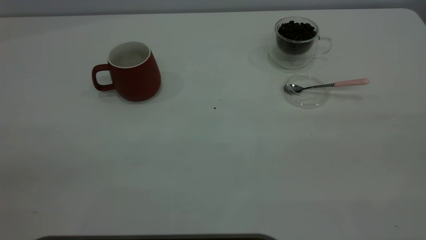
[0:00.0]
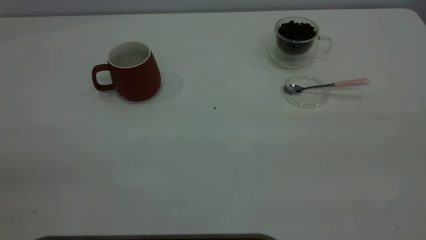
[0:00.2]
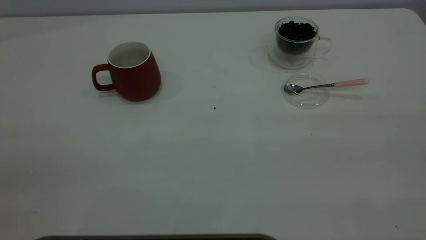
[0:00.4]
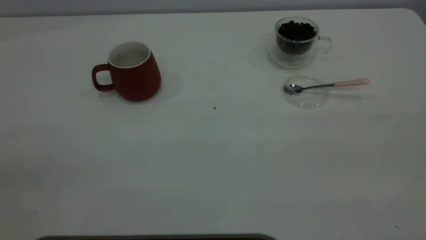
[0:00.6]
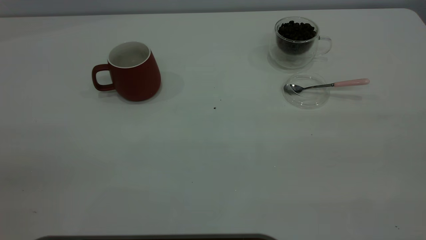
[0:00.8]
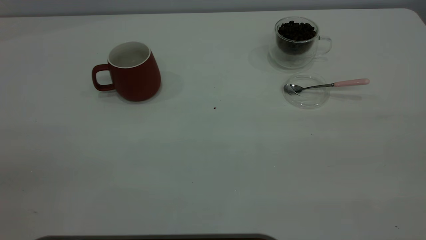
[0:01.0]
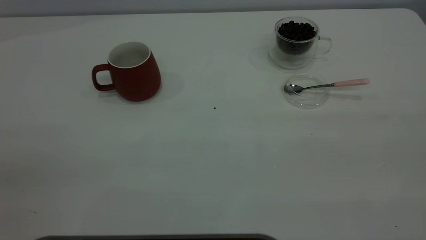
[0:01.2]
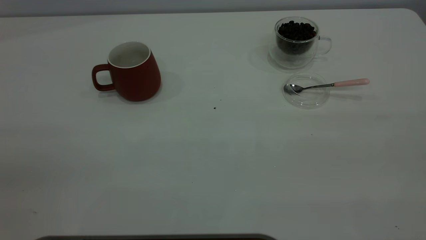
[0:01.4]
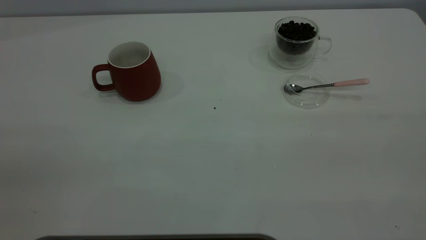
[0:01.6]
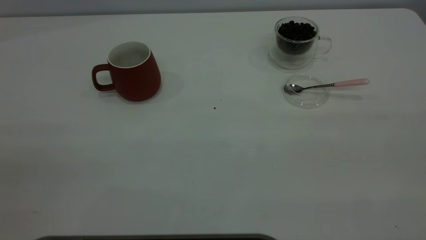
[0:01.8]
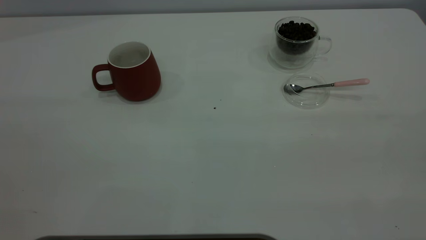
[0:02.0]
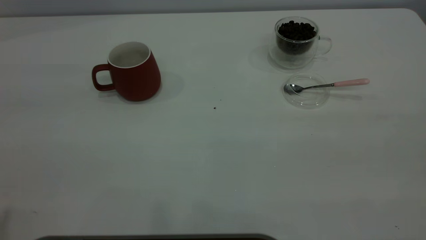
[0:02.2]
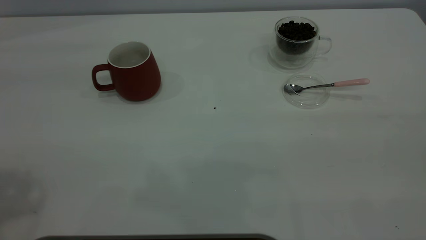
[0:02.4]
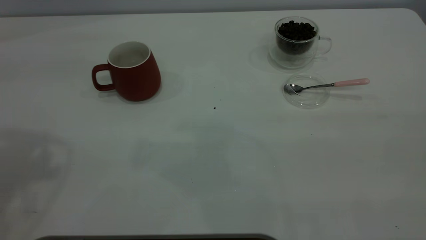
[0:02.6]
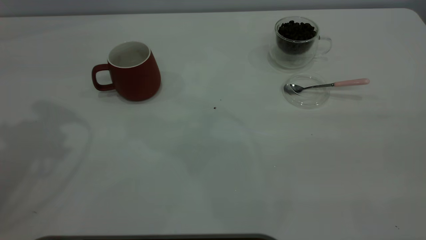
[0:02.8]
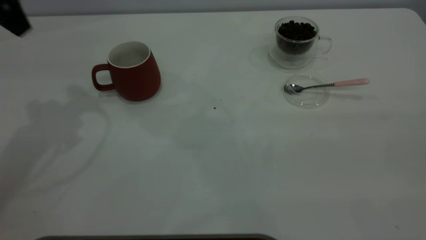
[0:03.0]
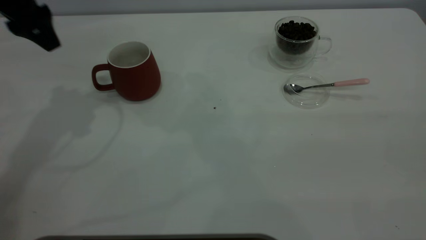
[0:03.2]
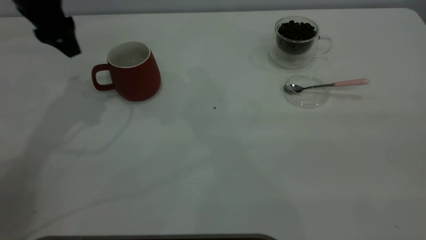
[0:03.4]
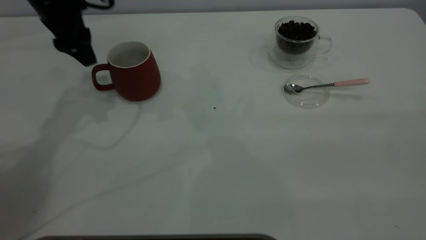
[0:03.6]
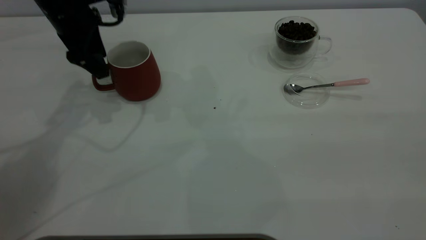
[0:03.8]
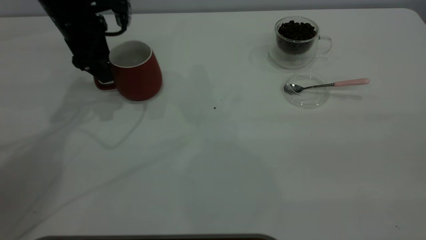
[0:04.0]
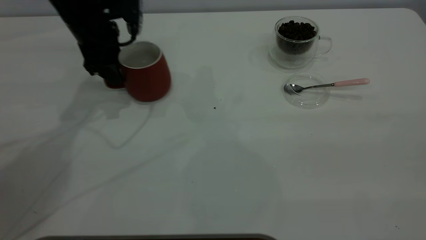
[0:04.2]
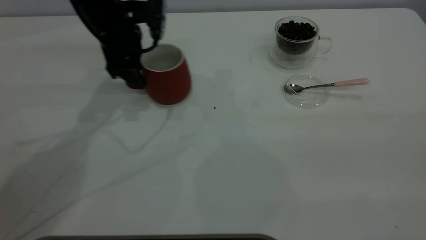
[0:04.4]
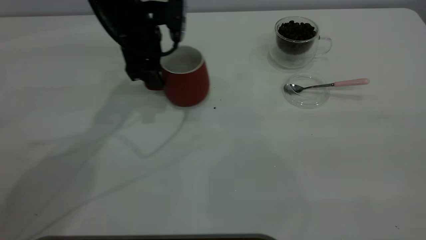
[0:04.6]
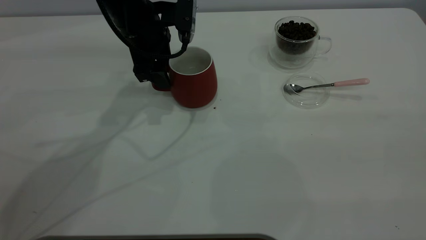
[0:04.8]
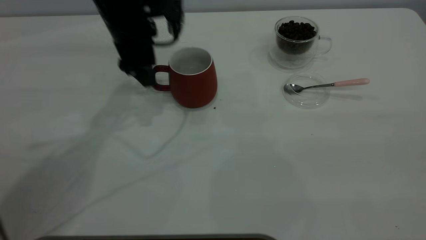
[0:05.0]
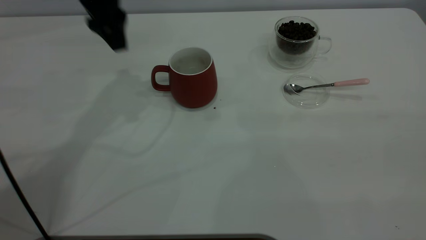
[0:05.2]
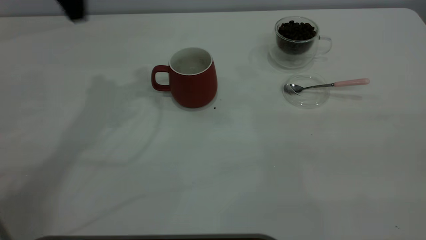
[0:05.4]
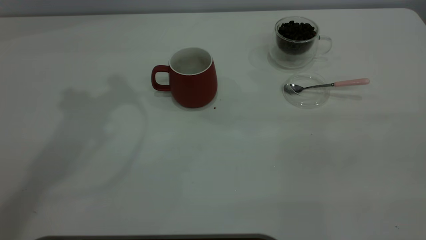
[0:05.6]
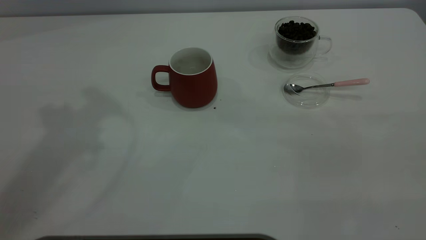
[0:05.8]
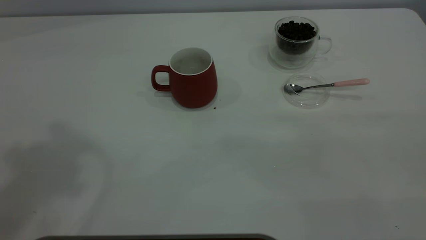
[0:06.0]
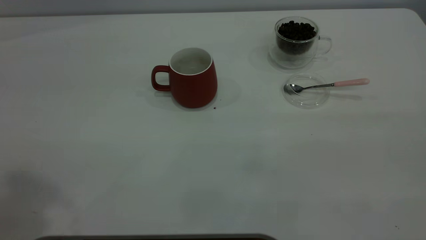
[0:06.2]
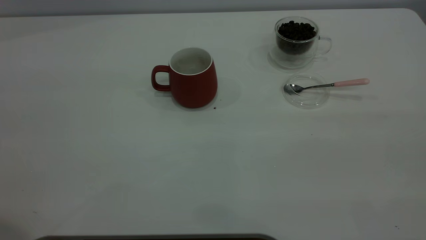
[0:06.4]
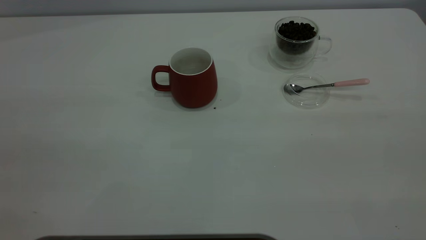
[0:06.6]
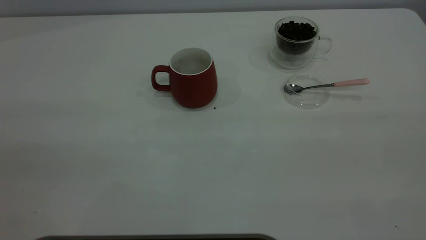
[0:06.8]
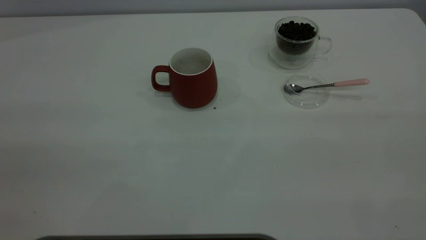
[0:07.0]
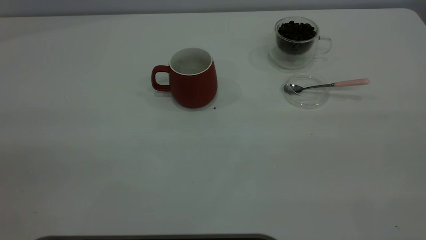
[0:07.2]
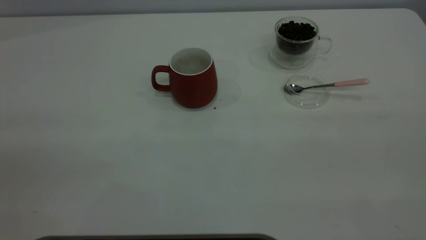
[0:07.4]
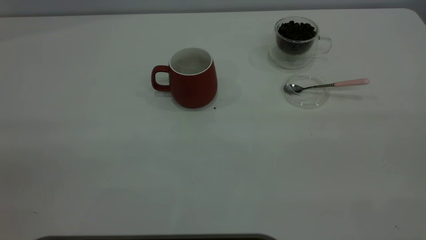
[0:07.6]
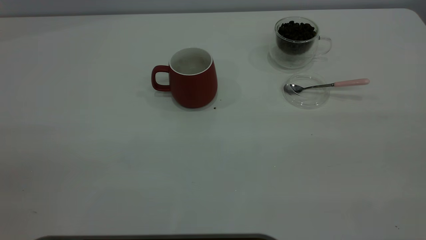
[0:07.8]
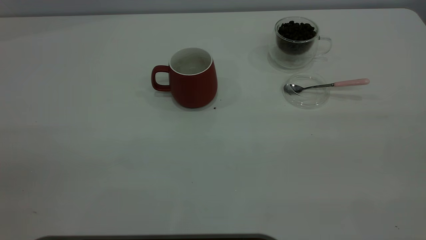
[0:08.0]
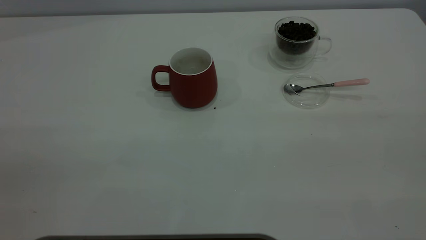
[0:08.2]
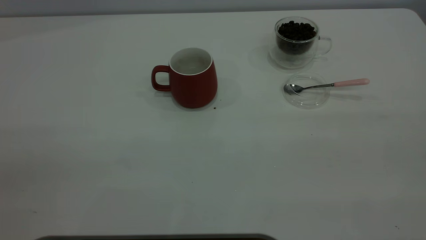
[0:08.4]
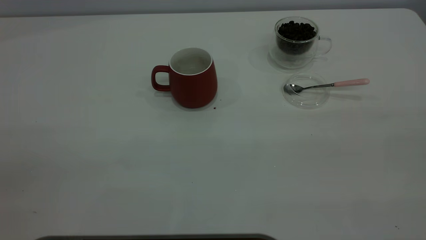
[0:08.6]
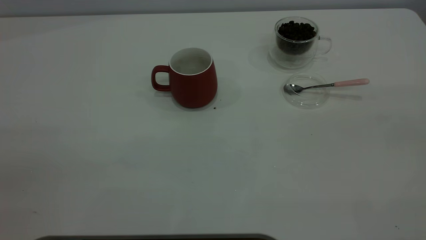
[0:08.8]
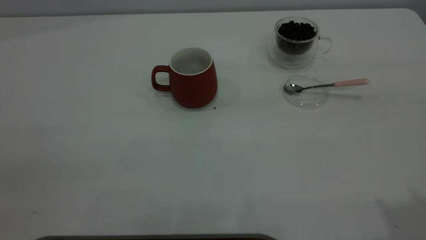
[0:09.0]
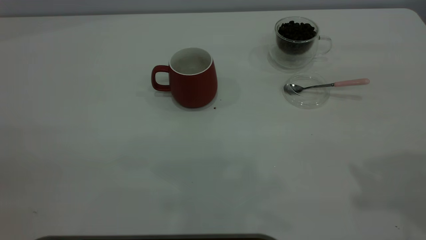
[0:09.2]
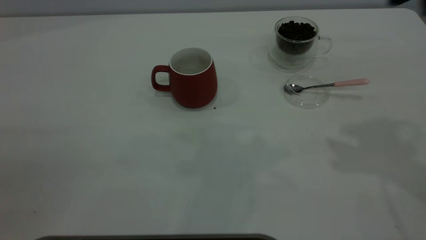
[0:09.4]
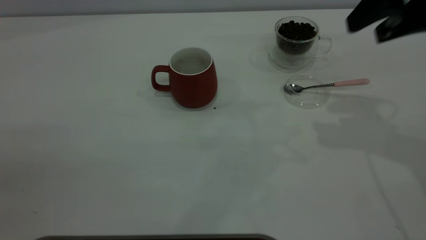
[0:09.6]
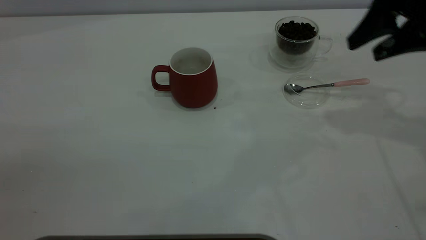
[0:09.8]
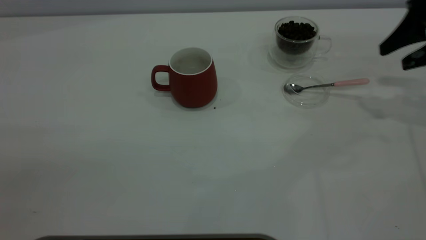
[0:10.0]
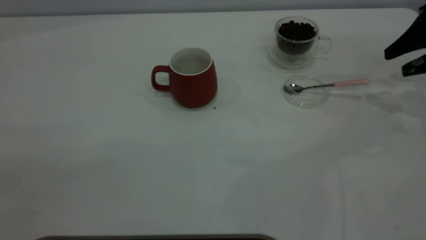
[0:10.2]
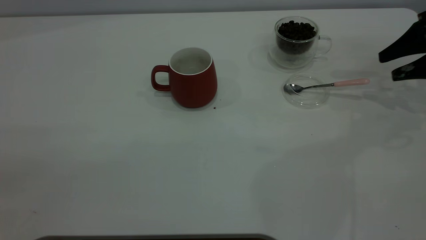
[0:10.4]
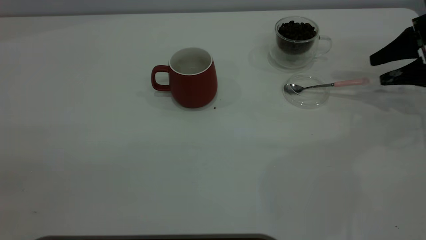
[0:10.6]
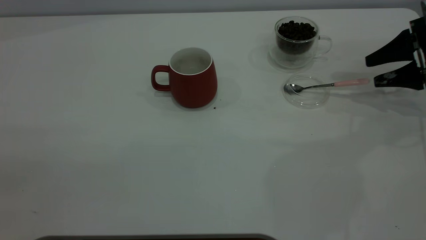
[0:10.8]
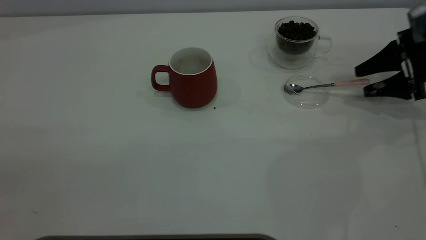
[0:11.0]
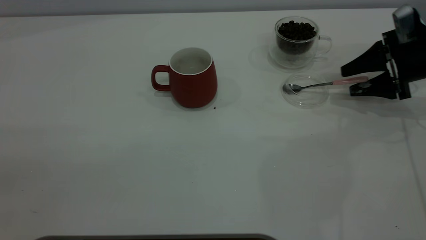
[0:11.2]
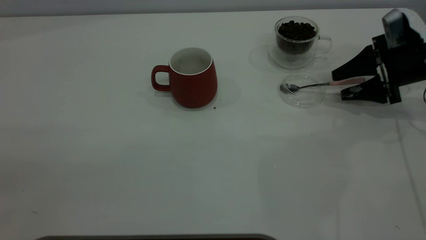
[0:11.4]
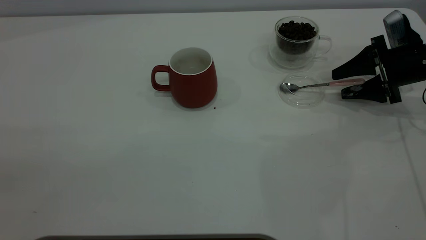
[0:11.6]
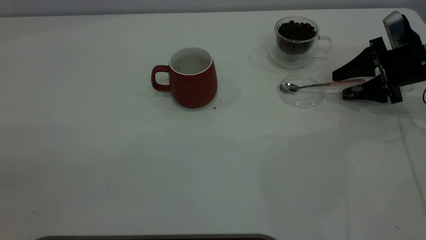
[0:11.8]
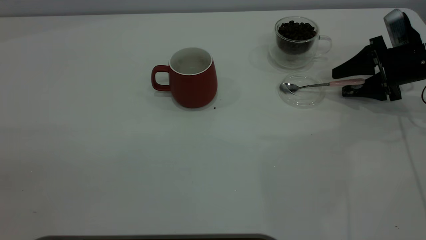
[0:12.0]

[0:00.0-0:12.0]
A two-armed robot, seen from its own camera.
Task of the whole recording: the left gripper place the red cup in the center of the table, the right gripper take the pink spoon from the cup lid and scoop out the coffee beans from the coffee cup and put them into the red cup, the right gripper put the spoon back into the cup lid.
Step, 0:00.0 to 0:05.0: Move the cup to the center of view.
0:00.0 to 0:01.6: Both grippers stay put.
0:01.6 to 0:03.0: The left gripper shifts some 35 cm forward.
0:03.0 to 0:04.4: The left gripper goes approximately 20 cm downward, to the right and forward.
0:04.4 to 0:06.0: The left gripper shifts roughly 40 cm upward and backward.
0:09.0 to 0:10.4: The right gripper is displaced forward, downward and to the right by approximately 40 cm.
0:10.4 to 0:12.0: The right gripper heads downward and to the left, covering about 10 cm.

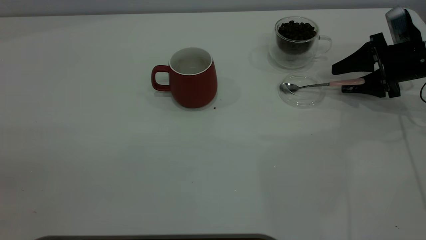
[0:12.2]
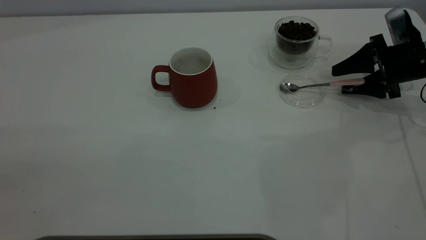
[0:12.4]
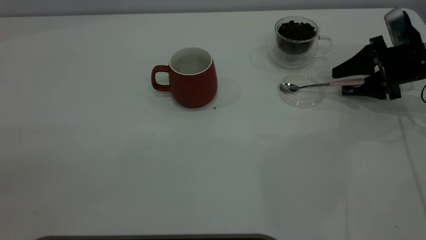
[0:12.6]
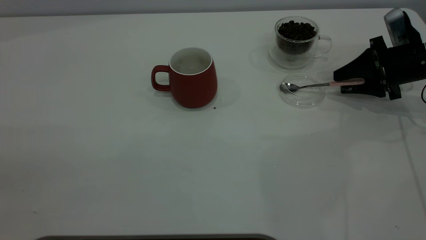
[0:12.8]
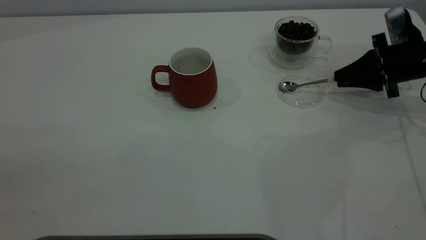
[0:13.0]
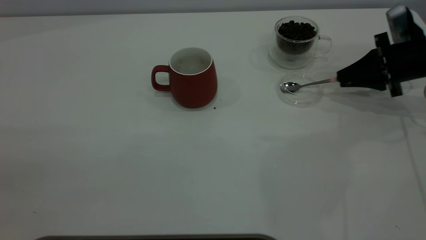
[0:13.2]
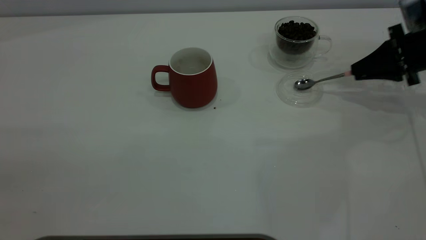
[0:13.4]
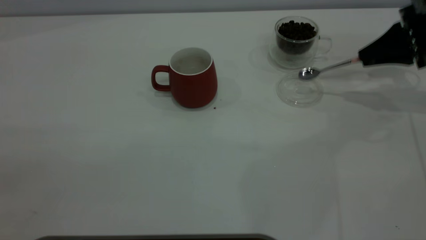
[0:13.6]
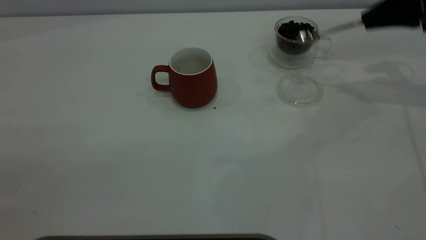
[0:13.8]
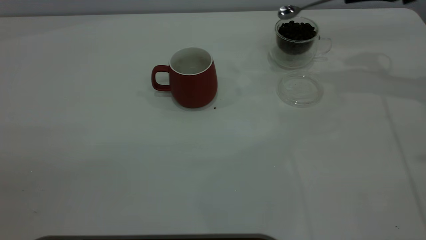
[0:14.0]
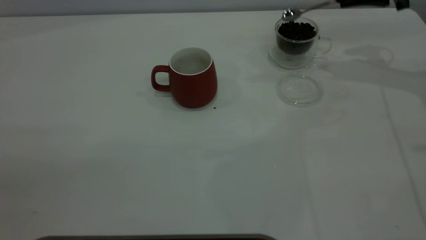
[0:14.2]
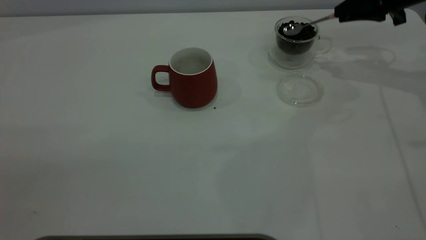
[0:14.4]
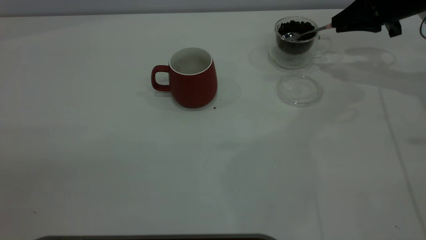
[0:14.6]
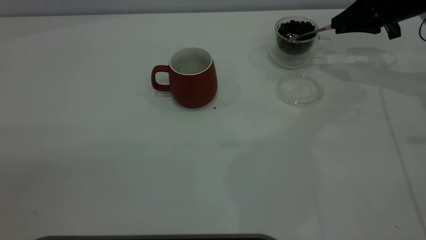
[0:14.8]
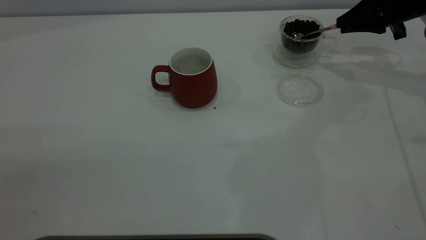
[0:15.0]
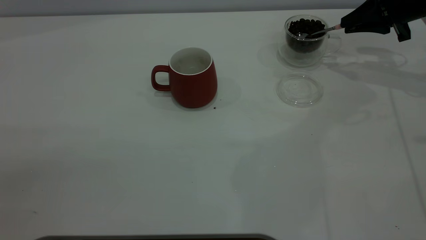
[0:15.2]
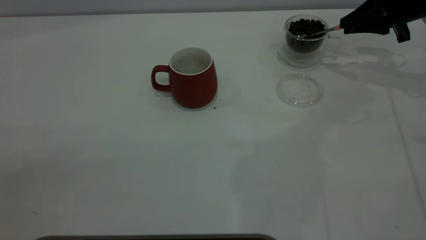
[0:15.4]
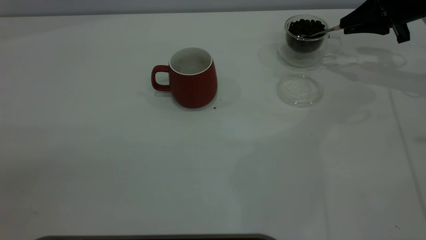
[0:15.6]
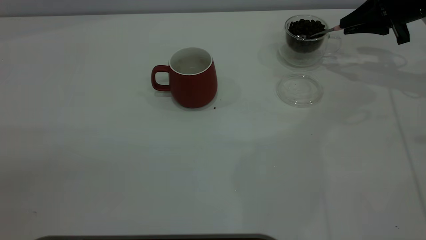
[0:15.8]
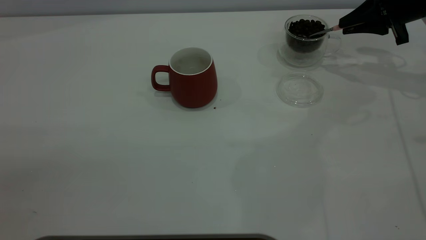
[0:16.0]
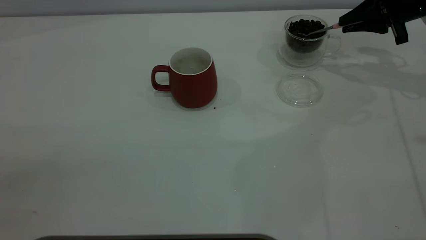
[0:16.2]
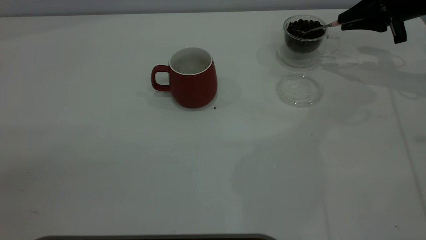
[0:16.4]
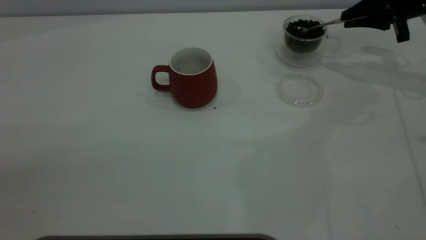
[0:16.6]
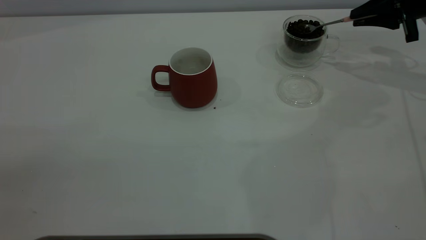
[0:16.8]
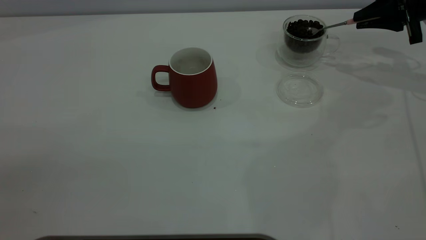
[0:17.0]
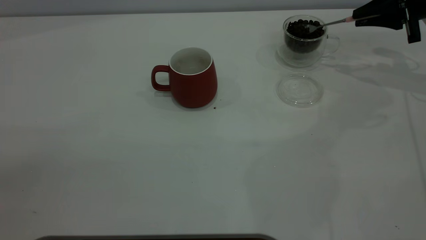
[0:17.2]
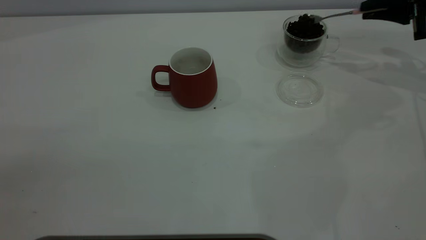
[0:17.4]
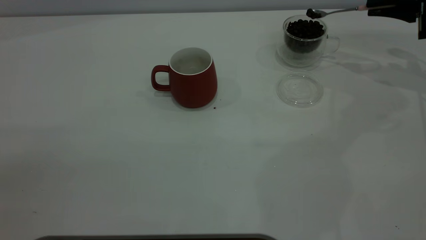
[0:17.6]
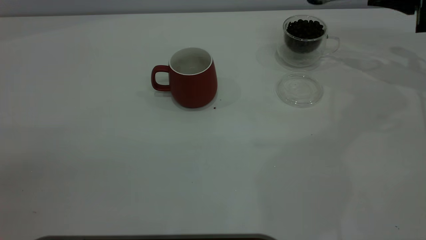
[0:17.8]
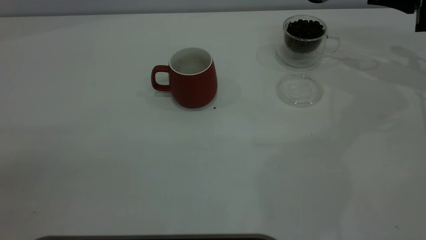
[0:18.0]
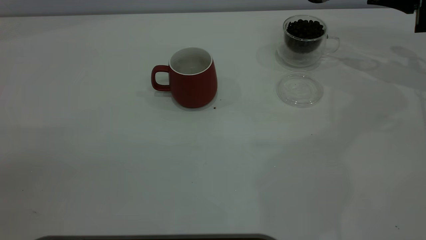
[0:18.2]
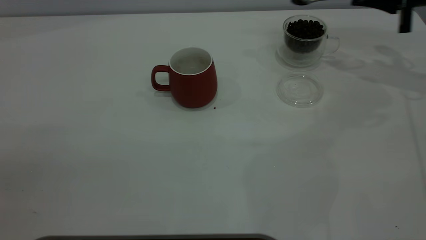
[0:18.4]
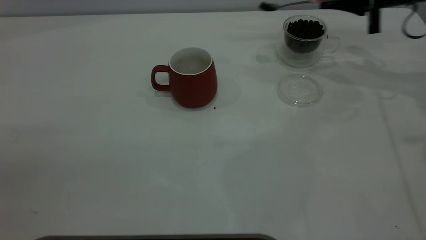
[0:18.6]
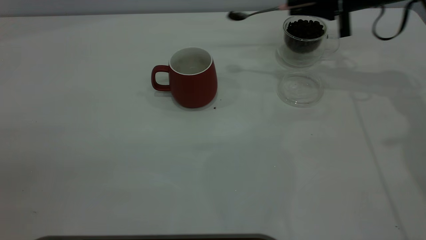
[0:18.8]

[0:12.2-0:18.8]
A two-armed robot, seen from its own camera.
Task of the whole recording: the left gripper place the red cup in the center of the table, the right gripper take the pink spoon from the cup lid and scoop out the coffee beans from the coffee cup and put them into the red cup, the right gripper put the spoon back into the cup lid.
0:12.2 to 0:13.8: The right gripper is displaced upward by about 15 cm, and closes.
0:13.8 to 0:15.4: The right gripper is displaced downward by some 5 cm.
0:15.4 to 0:17.2: There are only small adjustments of the grippers.
0:17.2 to 0:18.8: The right gripper moves to the left, about 10 cm.
